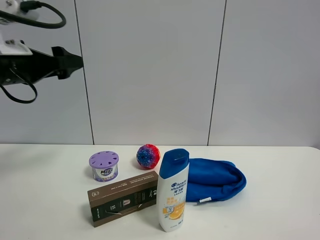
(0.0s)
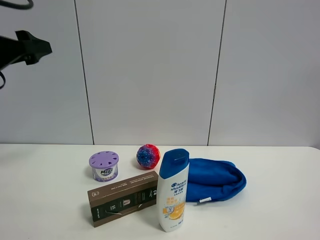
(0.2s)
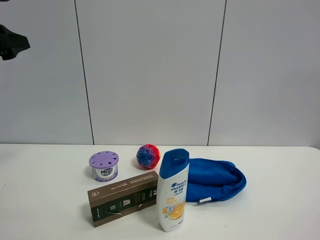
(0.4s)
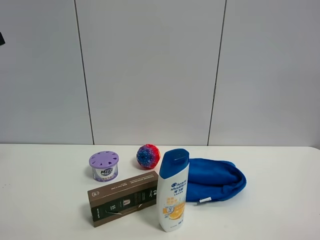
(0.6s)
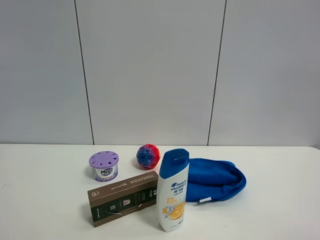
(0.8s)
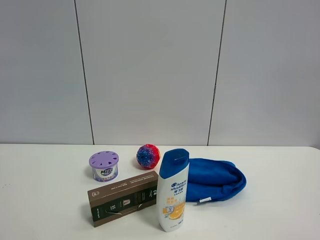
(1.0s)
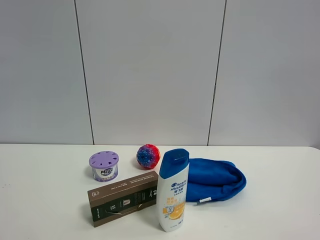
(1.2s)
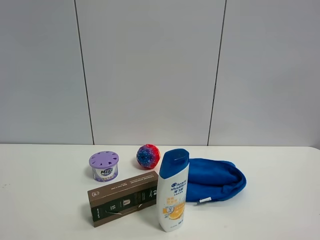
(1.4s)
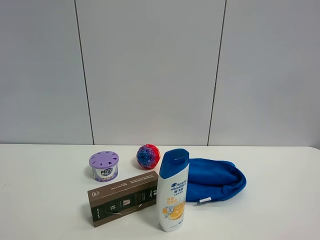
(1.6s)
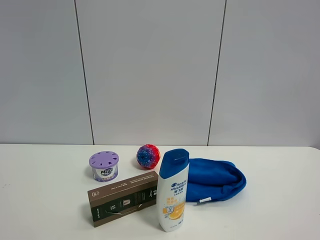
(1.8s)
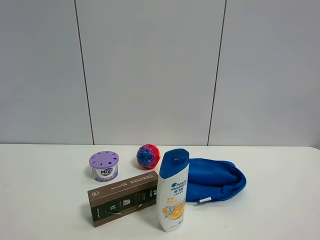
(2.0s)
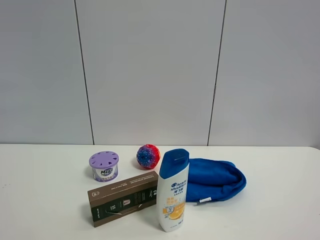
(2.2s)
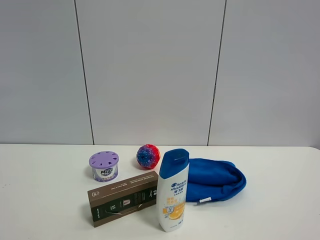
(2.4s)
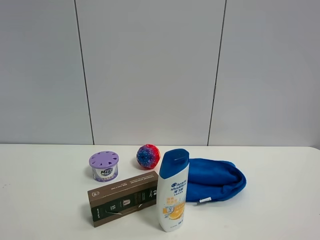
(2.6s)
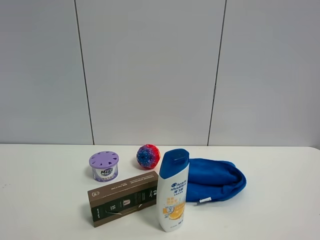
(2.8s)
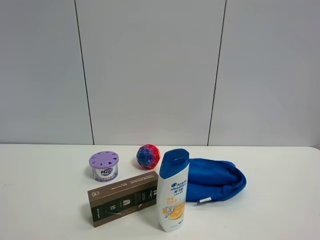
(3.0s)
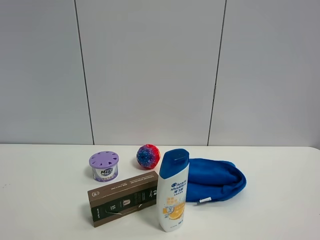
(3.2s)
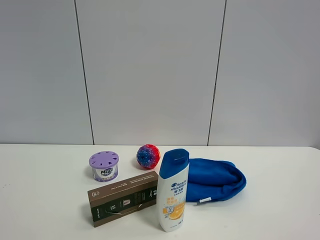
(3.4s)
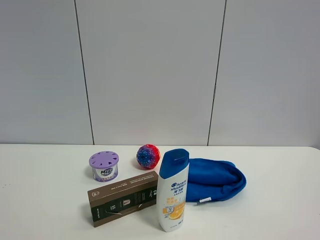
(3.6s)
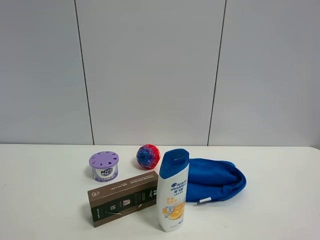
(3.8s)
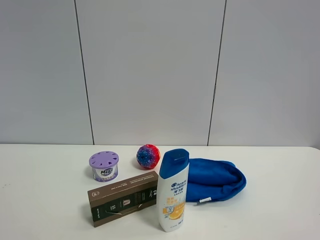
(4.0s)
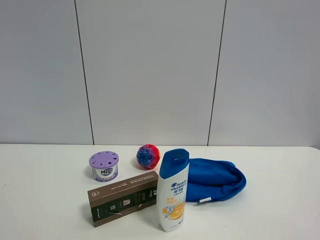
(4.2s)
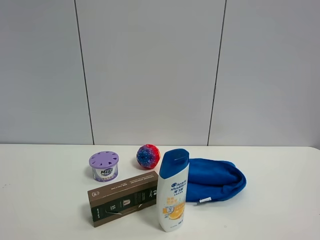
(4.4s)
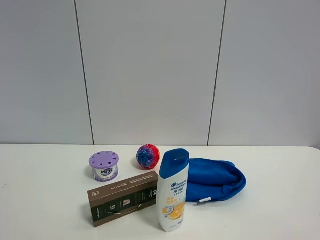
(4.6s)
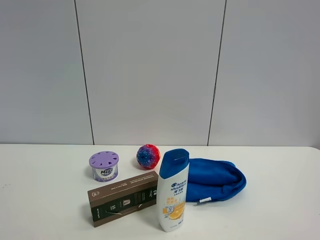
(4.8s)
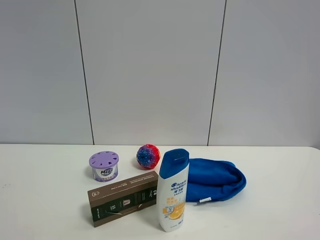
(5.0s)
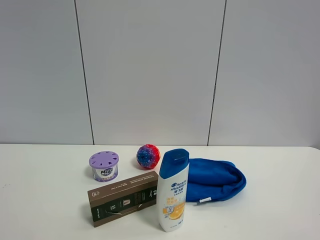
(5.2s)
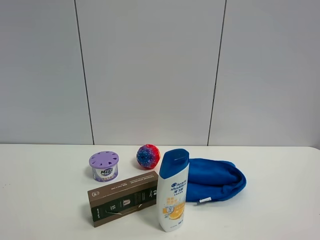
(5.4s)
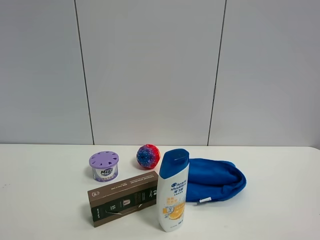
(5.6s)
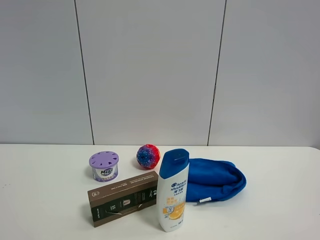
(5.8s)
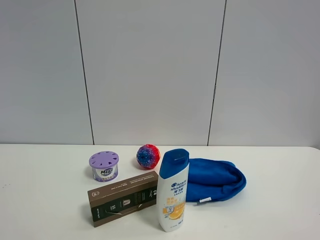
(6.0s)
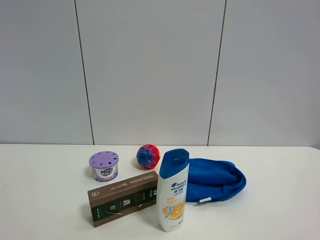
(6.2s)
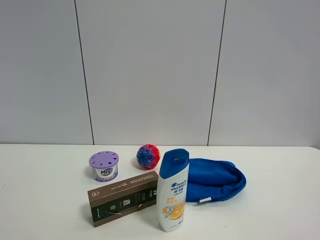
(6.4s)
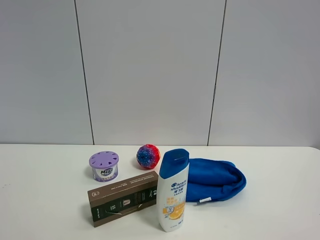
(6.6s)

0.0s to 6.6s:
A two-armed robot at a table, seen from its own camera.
Task of the whole recording: the gripper move the object.
0.0s to 1.6s: The left gripper travels backward and upward by roughly 25 cm.
5.0s to 6.6s: The two grippers keep their place.

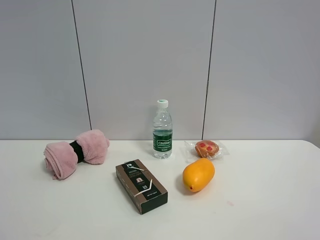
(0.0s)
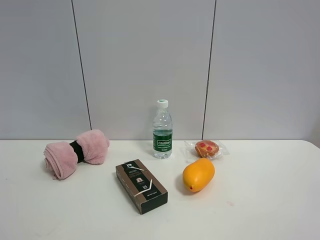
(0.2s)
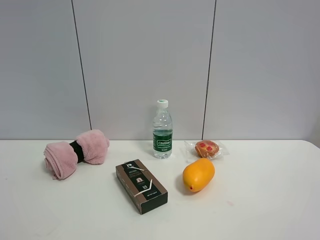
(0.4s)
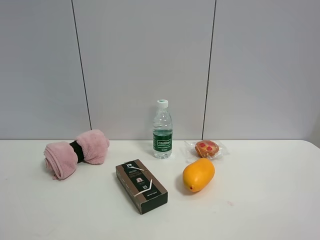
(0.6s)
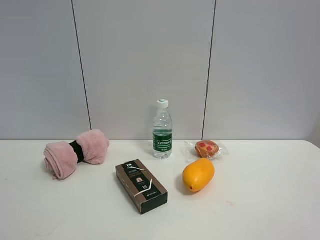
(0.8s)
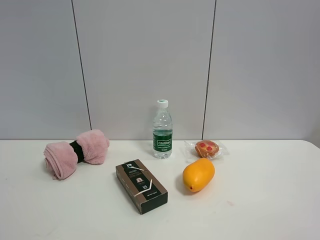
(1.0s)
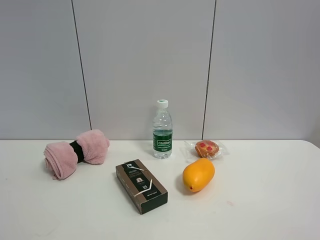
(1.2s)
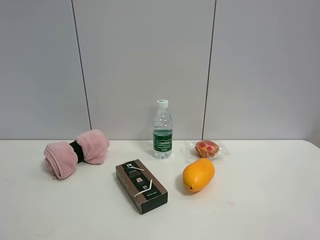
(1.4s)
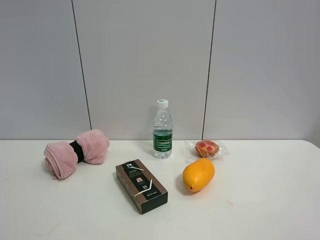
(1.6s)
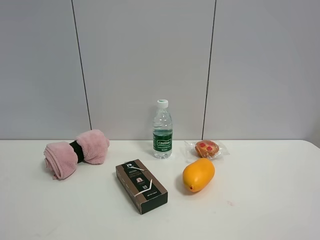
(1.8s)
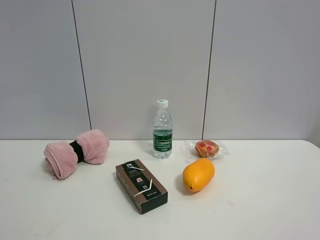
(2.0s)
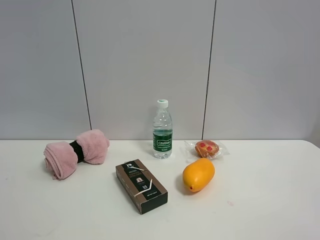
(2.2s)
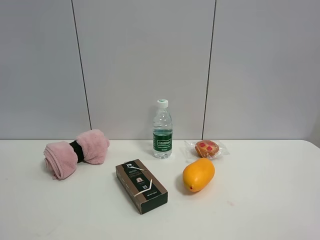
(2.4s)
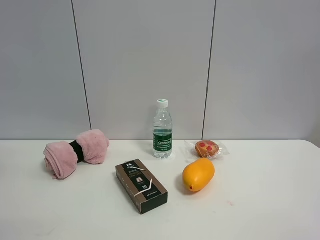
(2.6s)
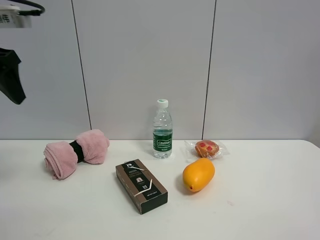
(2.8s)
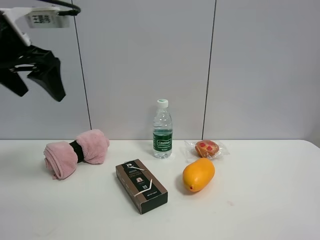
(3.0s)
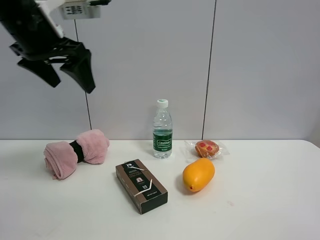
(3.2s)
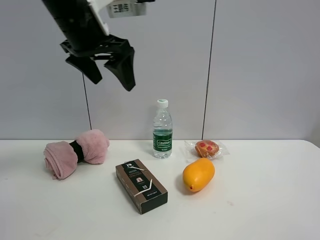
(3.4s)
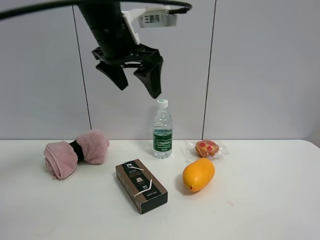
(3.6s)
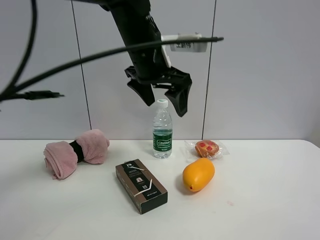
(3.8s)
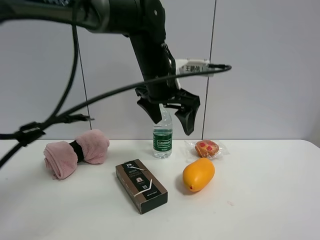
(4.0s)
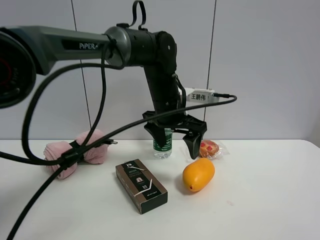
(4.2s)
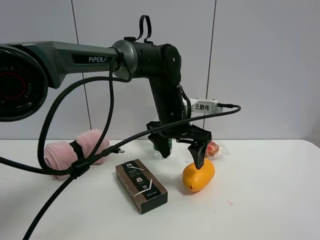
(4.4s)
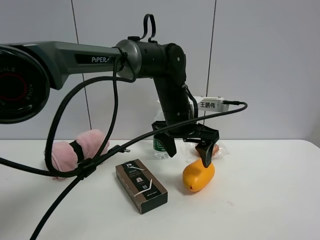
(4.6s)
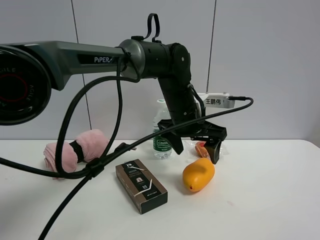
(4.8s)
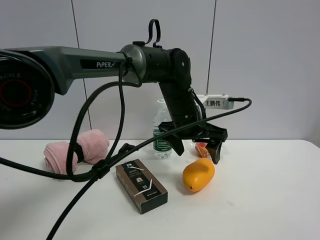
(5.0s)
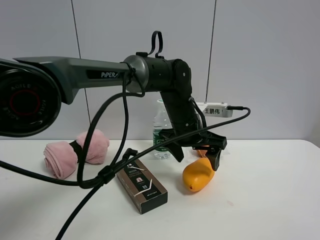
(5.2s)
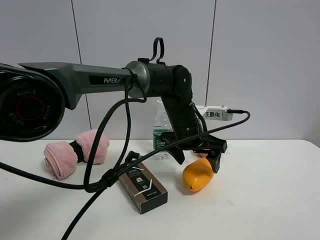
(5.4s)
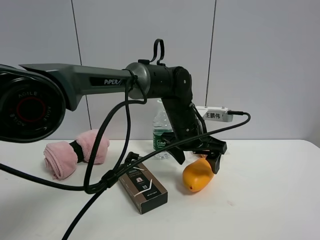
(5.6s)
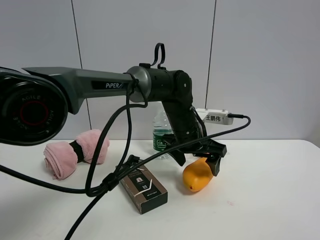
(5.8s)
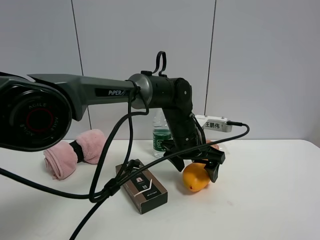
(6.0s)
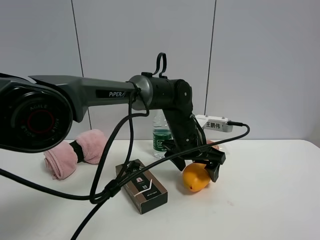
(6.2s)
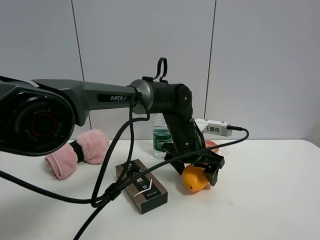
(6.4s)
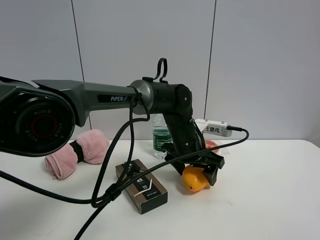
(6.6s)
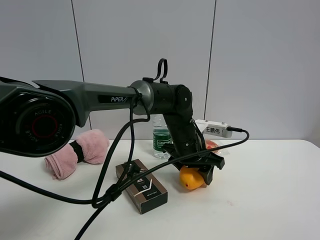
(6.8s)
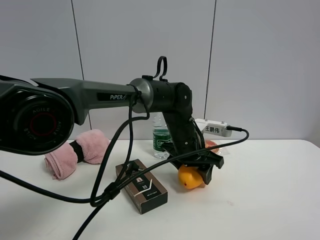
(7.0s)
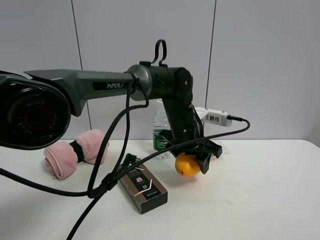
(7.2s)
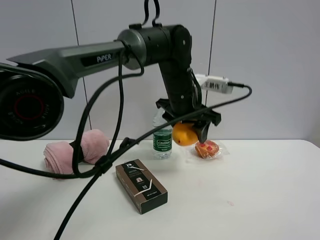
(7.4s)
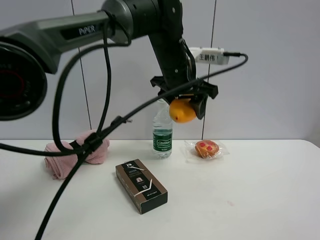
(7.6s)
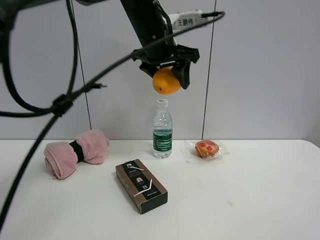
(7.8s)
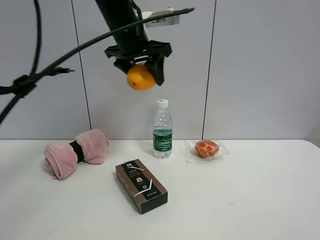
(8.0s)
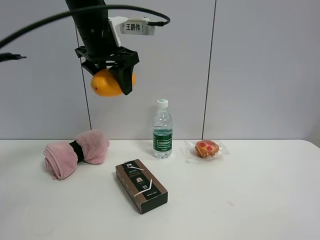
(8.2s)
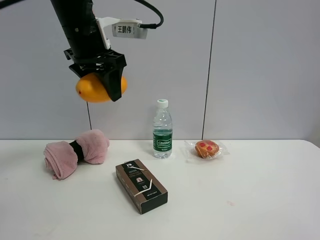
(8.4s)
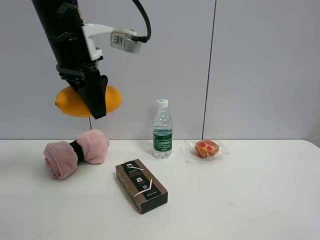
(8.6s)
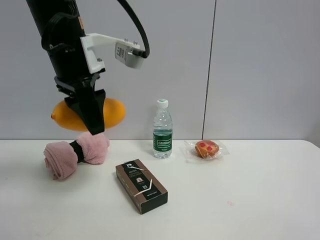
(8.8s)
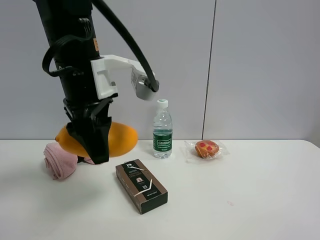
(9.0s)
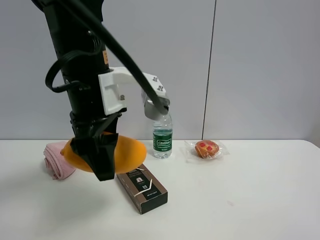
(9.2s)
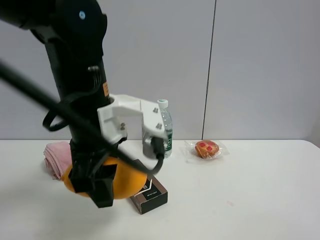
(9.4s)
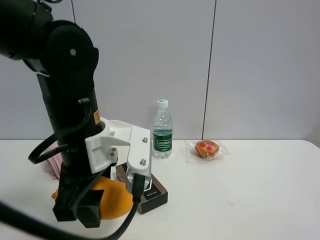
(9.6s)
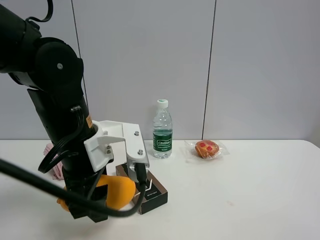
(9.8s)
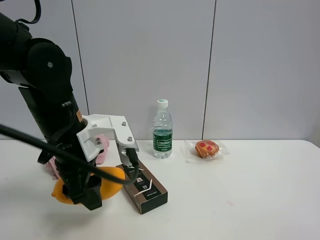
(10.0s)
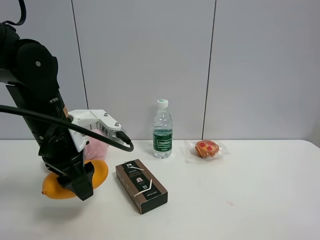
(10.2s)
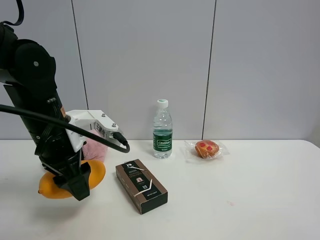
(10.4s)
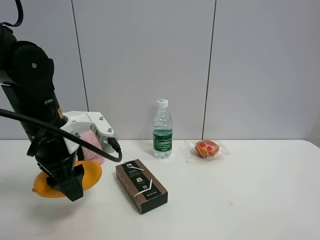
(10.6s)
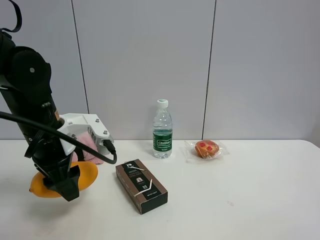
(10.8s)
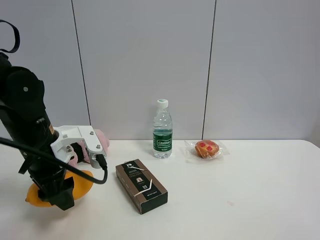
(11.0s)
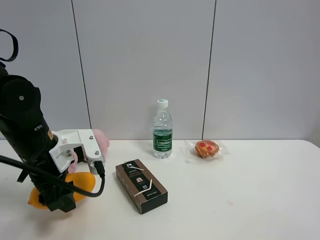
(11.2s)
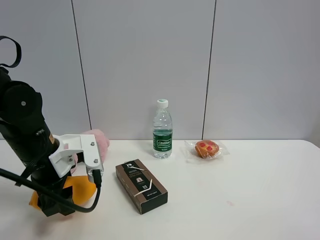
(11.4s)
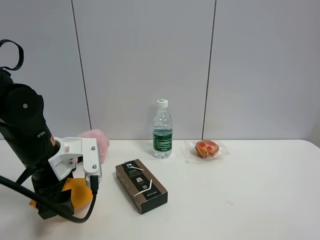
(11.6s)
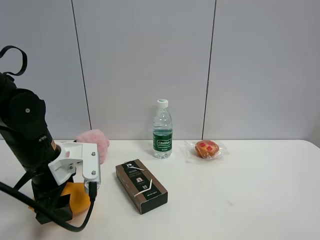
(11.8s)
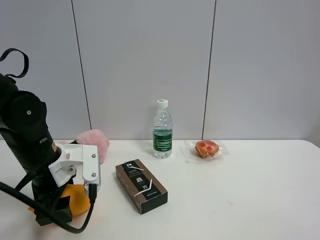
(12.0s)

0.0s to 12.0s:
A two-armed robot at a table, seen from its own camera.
Task of the whole recording: the gripper move the object.
Step, 0.0s to 6.8s: Grasp the mango with the left gripper.
1.6s to 3.0s: The left gripper shifts some 35 cm forward, and opens its fingers.
3.0s to 4.4s: The left gripper is displaced to the right and downward by roughly 30 cm.
4.4s to 6.0s: The left gripper travels downward by about 5 cm.
6.0s to 7.6s: The left gripper heads upward, covering roughly 15 cm, and closes up.
7.6s to 9.0s: The left gripper goes approximately 20 cm backward and to the left.
9.0s to 10.4s: The left gripper goes some 10 cm downward and to the left.
10.4s to 12.0s: The left gripper is displaced downward by about 5 cm.

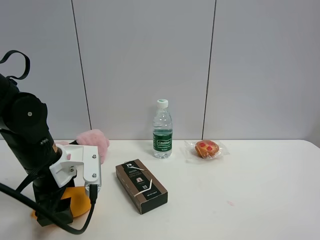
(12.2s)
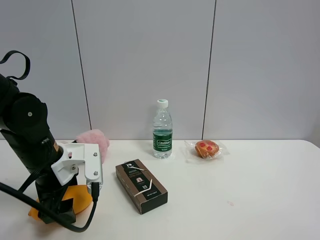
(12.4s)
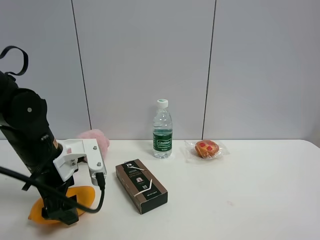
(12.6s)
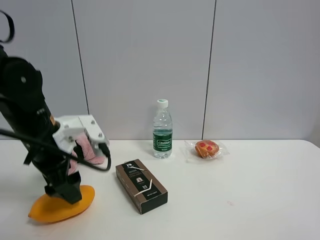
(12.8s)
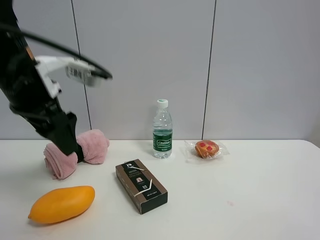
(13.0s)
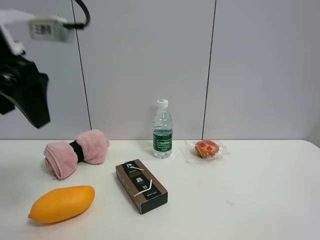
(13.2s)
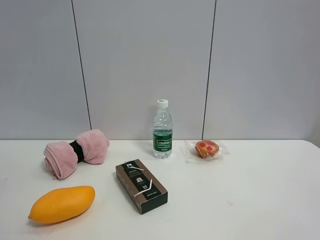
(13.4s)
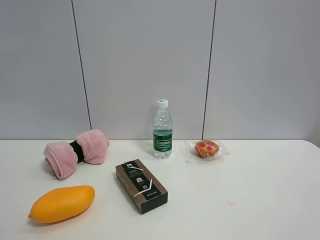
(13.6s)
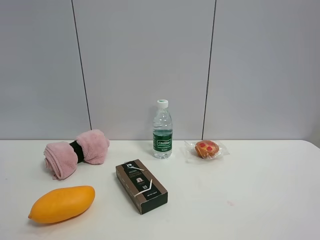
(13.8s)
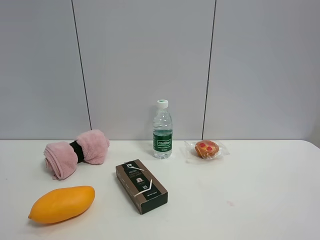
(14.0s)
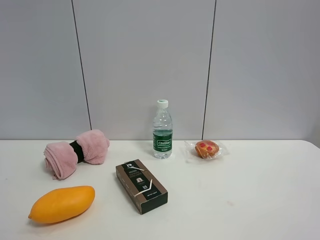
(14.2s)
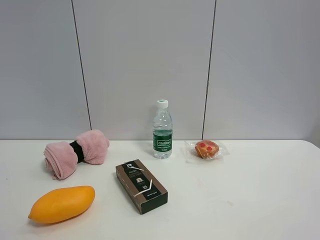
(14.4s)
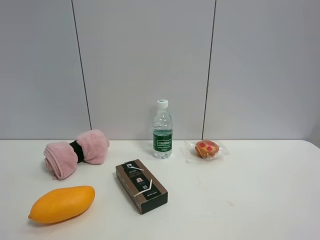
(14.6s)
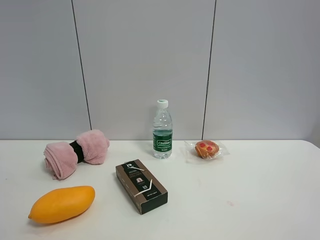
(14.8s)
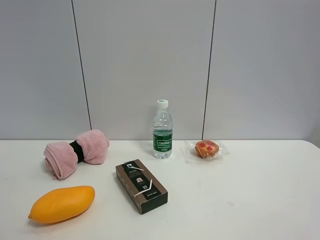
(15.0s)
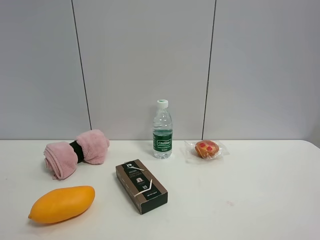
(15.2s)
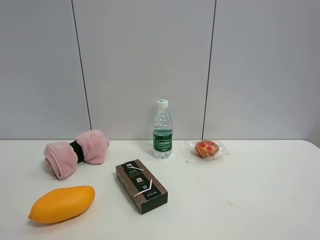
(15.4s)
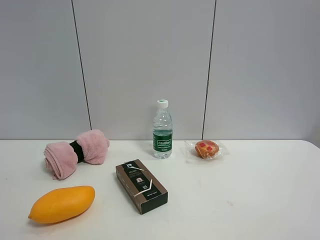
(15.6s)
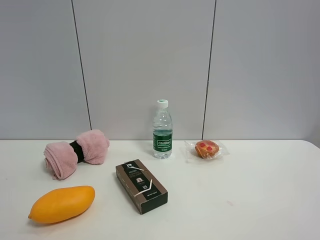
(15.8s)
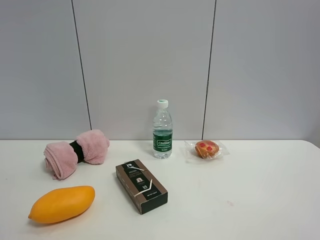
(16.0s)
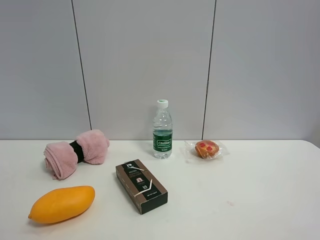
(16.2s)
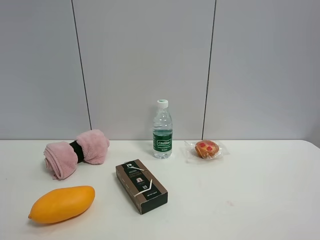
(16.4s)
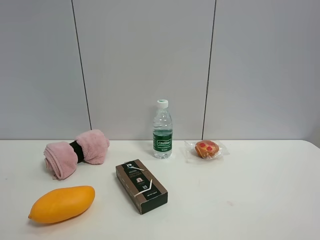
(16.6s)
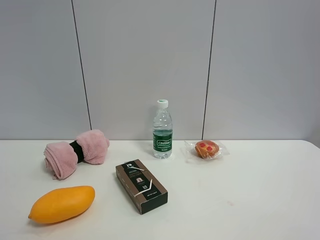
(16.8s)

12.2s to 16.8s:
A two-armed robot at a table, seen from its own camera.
Task of the whole recording: the gripper move the object.
12.2s to 13.8s: The left gripper is displaced upward and backward by approximately 40 cm, and opens.
15.2s to 16.8s: Both grippers stay put.
